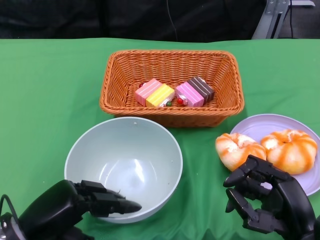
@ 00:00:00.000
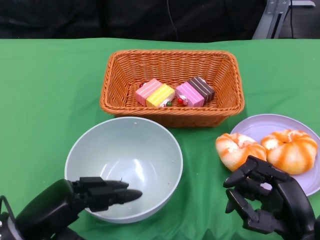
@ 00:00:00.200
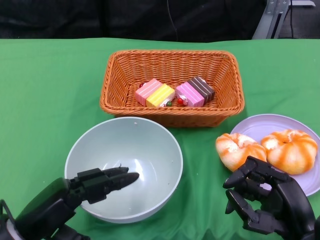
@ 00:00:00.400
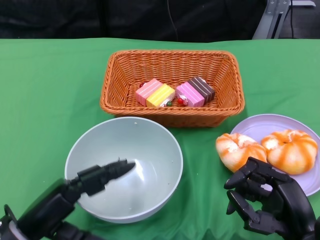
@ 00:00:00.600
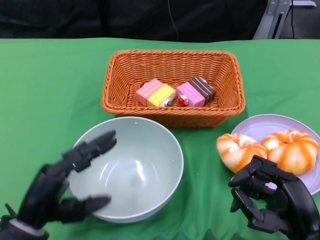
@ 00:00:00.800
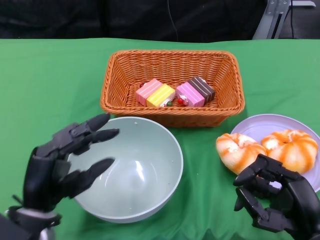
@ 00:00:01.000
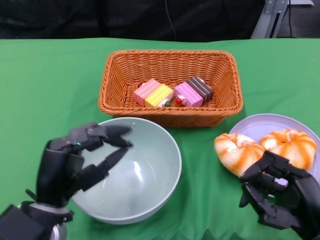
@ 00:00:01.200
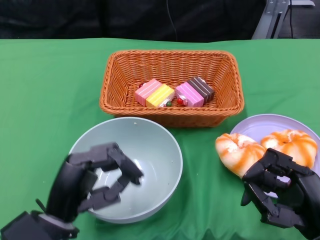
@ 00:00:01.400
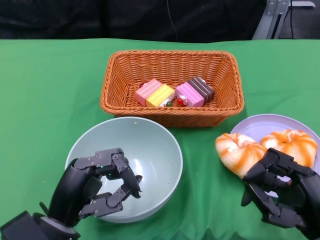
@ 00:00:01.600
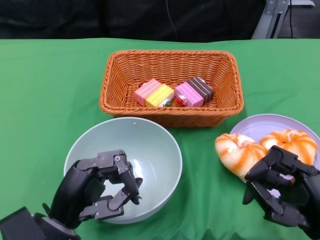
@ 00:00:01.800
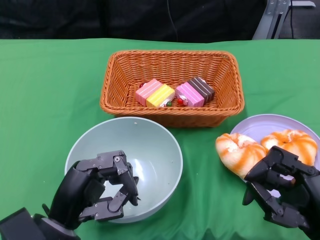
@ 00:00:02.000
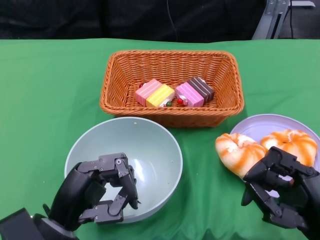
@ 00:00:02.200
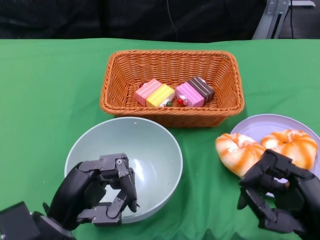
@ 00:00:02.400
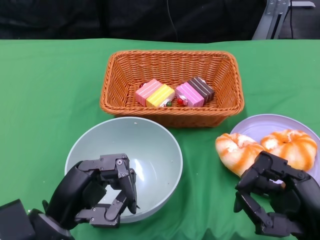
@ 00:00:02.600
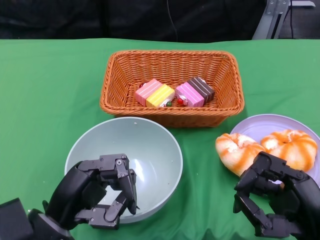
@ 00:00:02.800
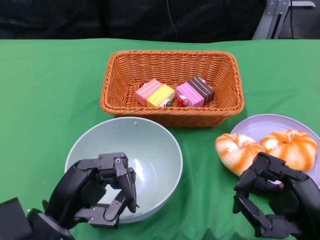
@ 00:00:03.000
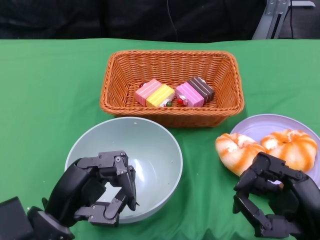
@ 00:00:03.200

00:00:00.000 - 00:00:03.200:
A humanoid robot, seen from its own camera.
00:00:00.000 - 00:00:01.600: The left hand travels to the right by about 5 cm.
00:00:01.600 - 00:00:03.200: The hands make only small movements.
